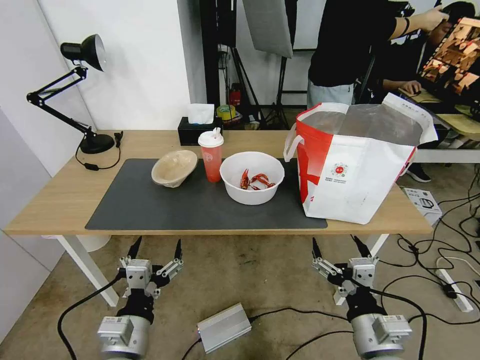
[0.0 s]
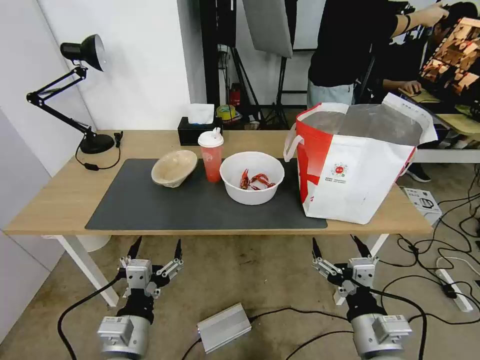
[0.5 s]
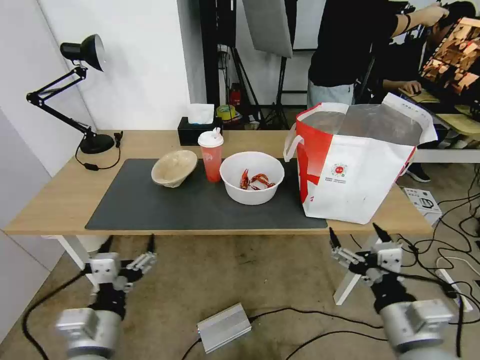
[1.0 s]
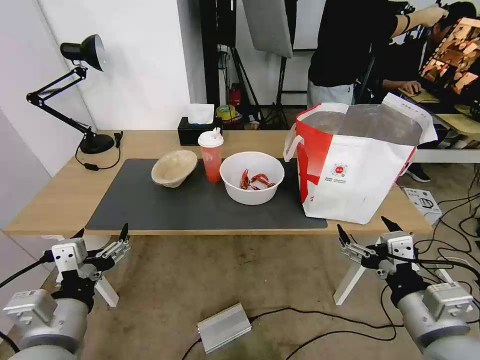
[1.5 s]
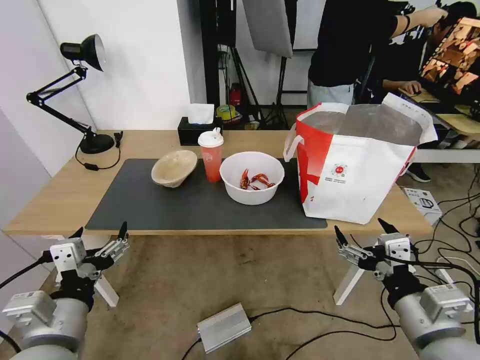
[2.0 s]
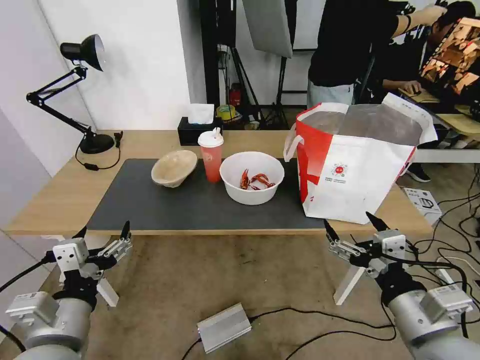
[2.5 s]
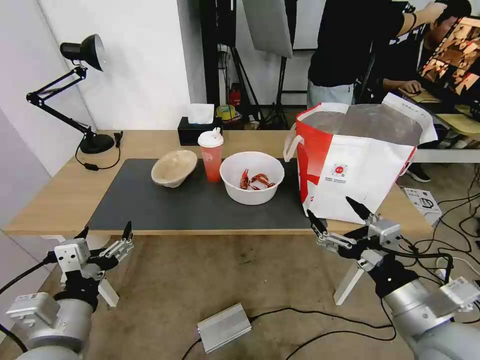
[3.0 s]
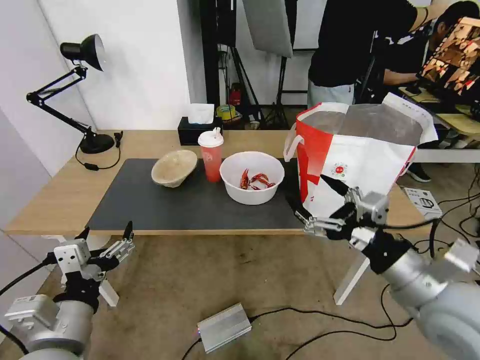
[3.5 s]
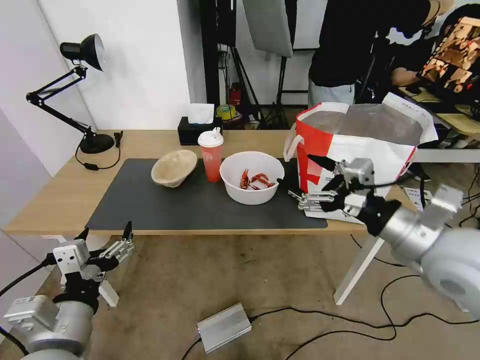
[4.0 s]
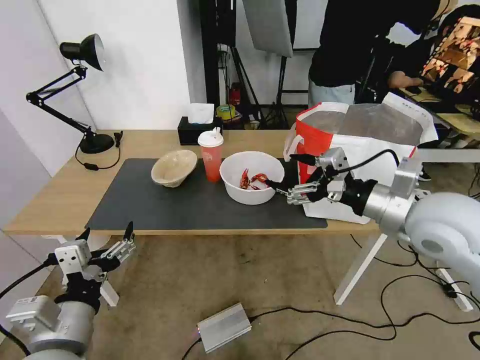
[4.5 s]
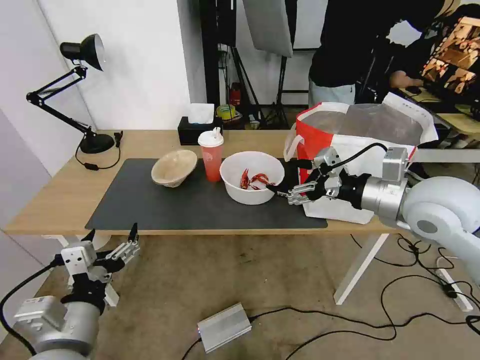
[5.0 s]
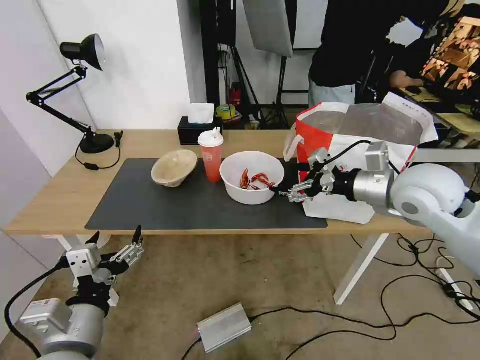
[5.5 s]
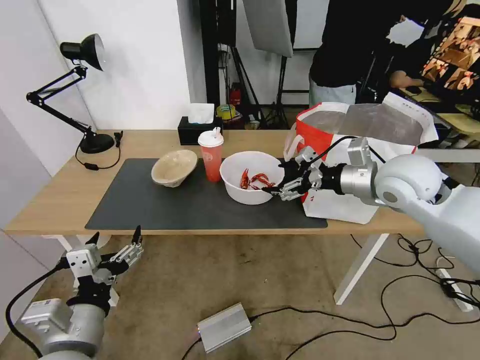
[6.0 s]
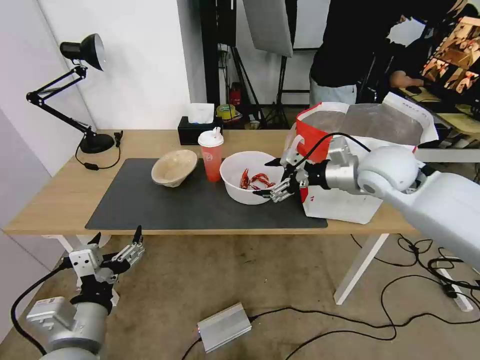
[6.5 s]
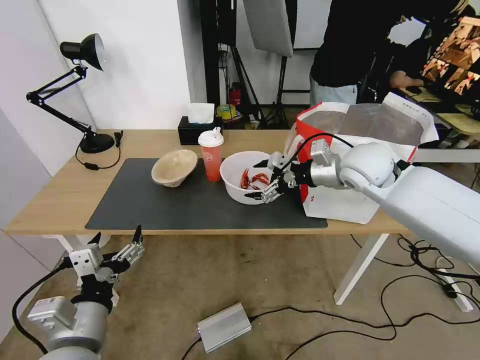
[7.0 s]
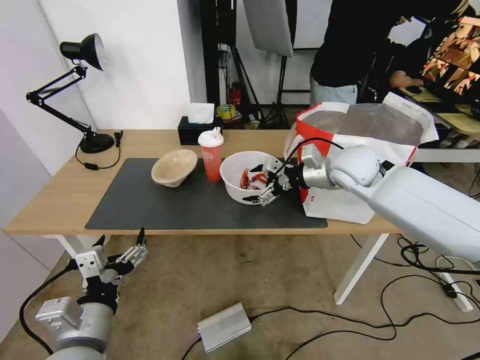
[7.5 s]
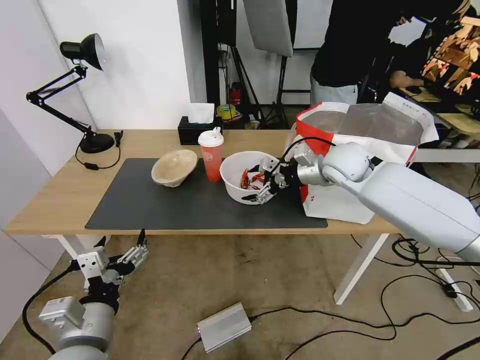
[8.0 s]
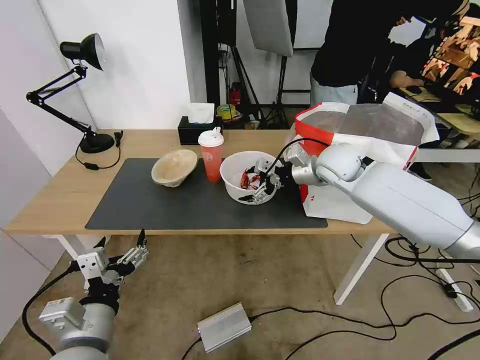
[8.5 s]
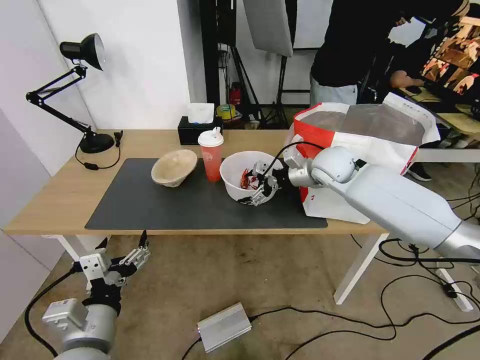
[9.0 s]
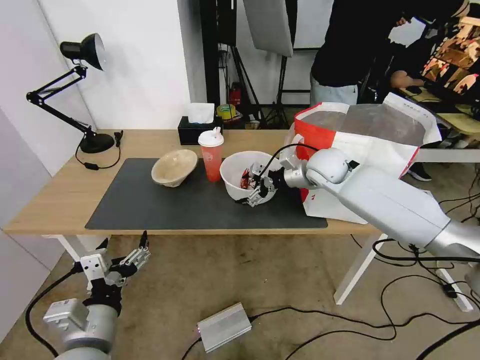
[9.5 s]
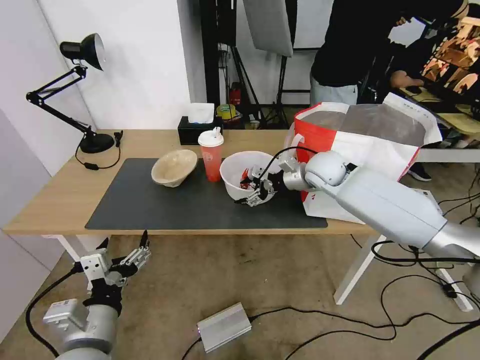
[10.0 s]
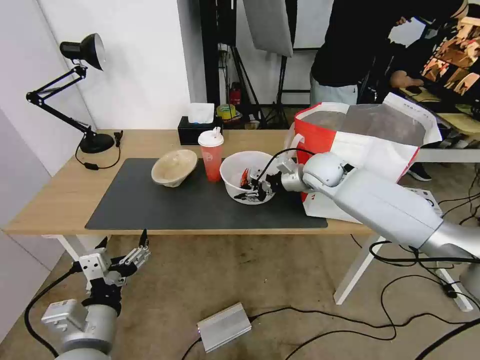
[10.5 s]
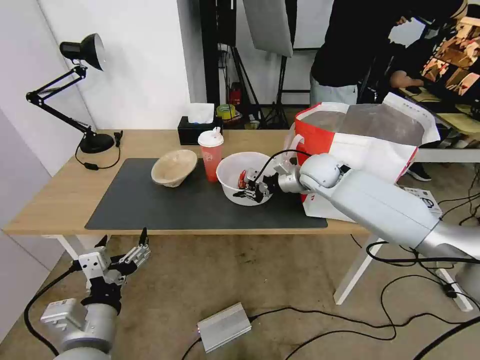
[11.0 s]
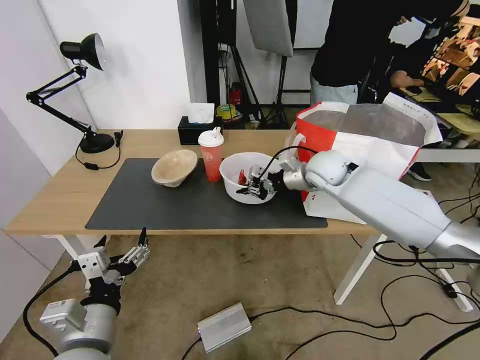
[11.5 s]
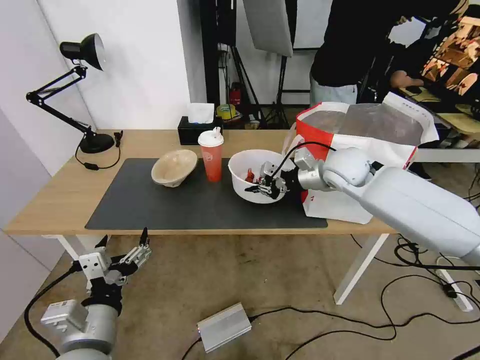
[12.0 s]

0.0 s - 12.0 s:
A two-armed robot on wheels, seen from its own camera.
Task of the whole recording: Pick up the trash from the table and place it into the takeout bag.
2.0 s - 4.0 s: The right gripper moves forward and upward, roughly 15 cm.
4.0 s - 6.0 s: The right gripper moves forward, roughly 15 cm.
6.0 s - 8.0 s: The right gripper goes approximately 15 cm forward and to the left.
8.0 s - 10.0 s: The right gripper moves about 5 cm.
10.0 s - 12.0 s: The right gripper changes place by some 5 cm, and closes up.

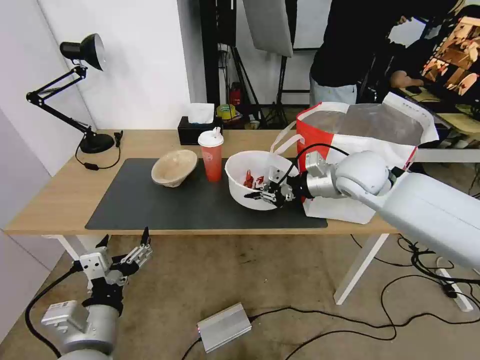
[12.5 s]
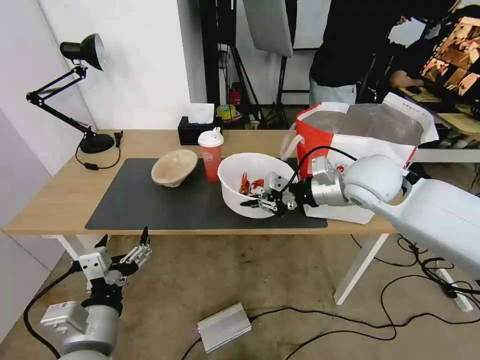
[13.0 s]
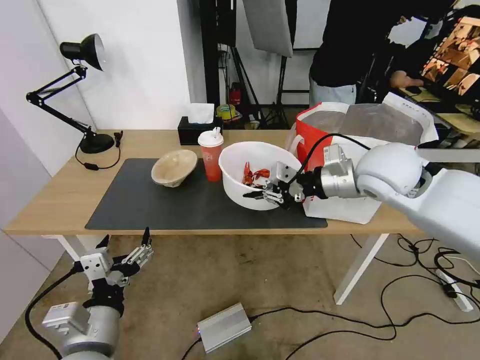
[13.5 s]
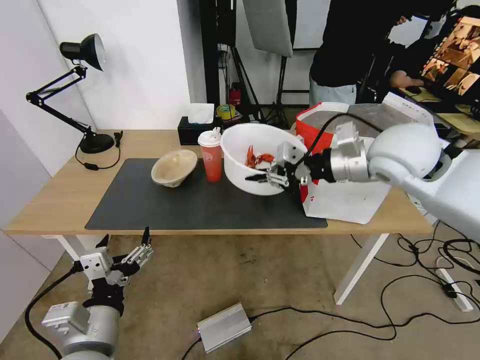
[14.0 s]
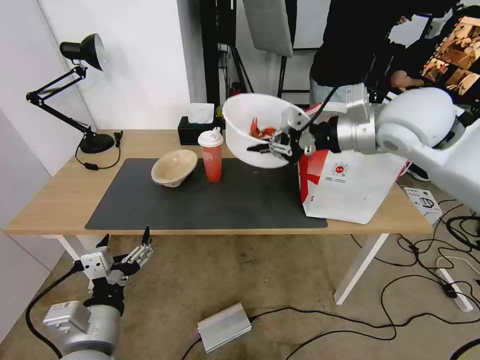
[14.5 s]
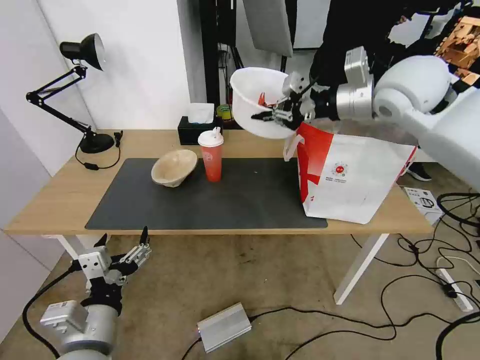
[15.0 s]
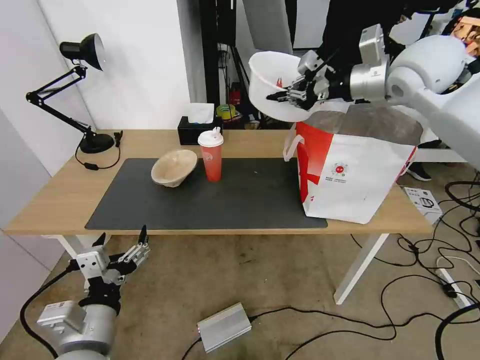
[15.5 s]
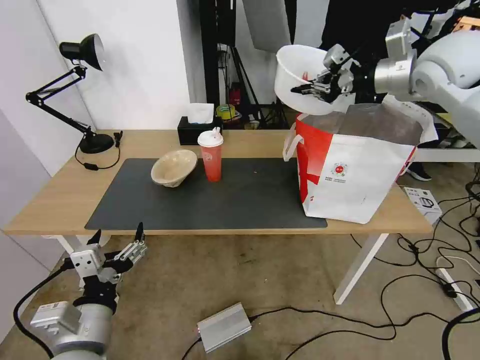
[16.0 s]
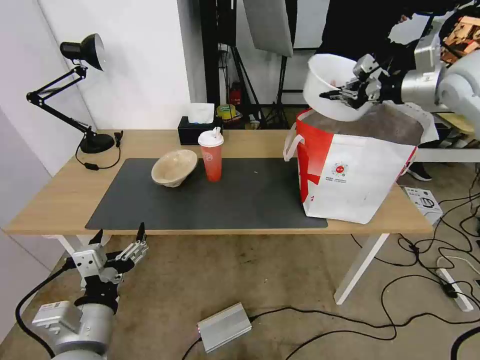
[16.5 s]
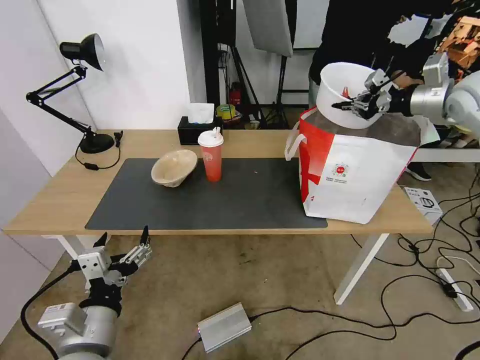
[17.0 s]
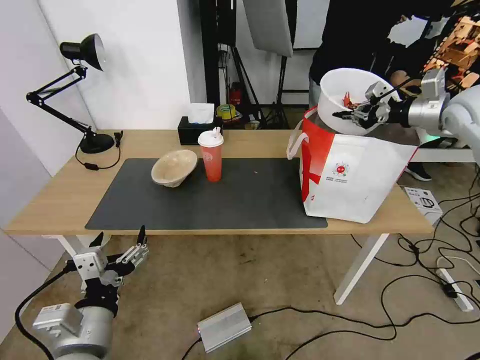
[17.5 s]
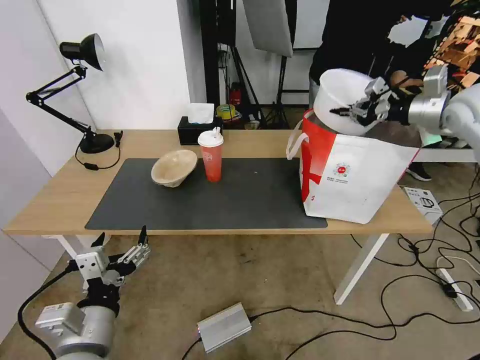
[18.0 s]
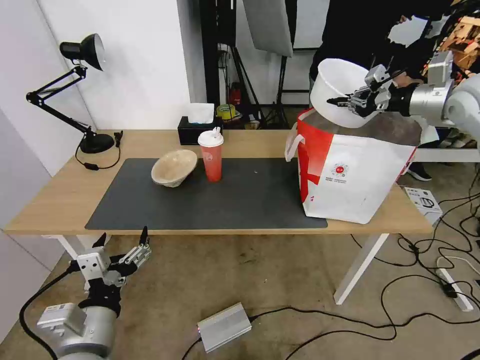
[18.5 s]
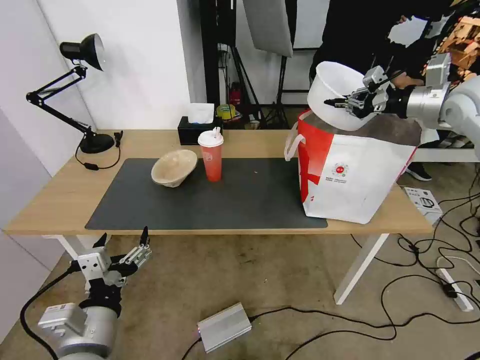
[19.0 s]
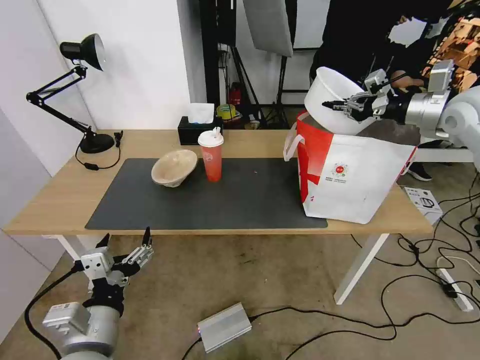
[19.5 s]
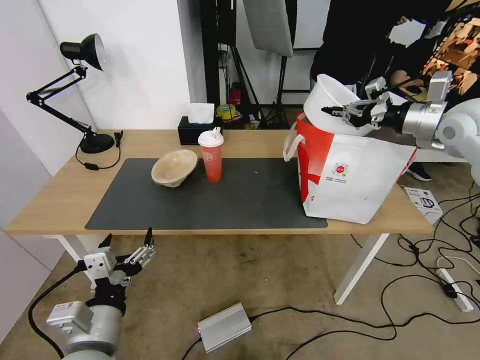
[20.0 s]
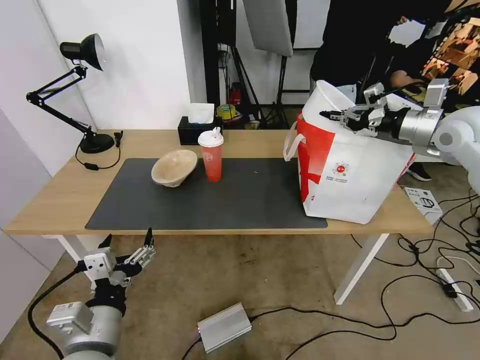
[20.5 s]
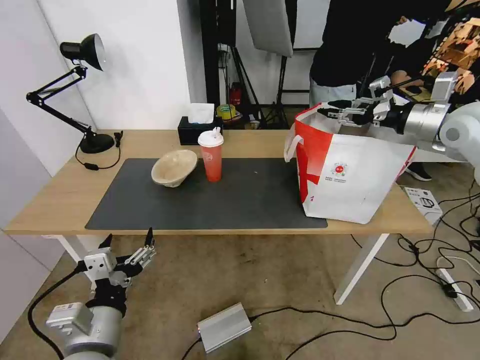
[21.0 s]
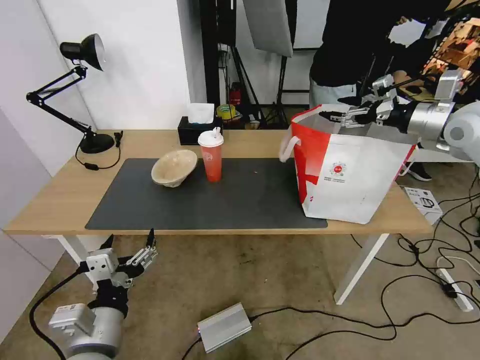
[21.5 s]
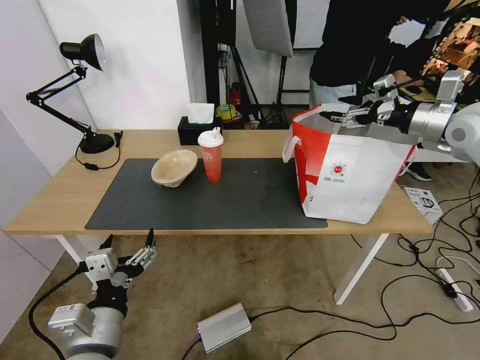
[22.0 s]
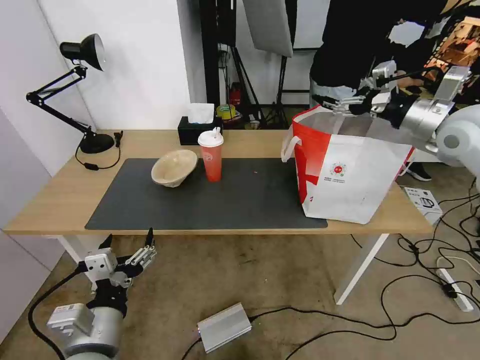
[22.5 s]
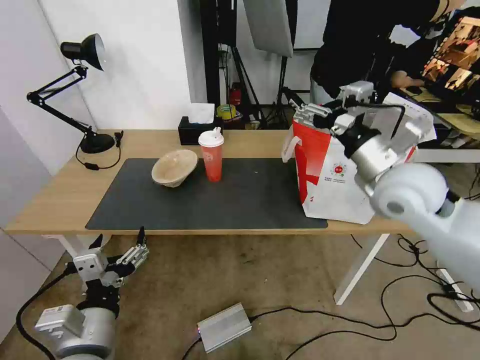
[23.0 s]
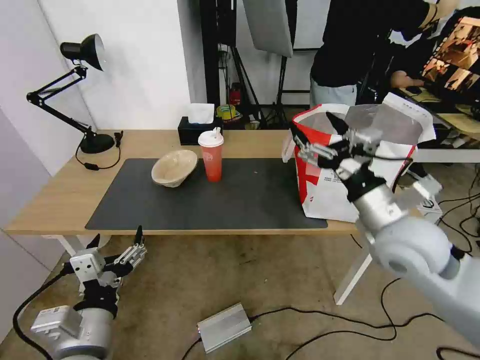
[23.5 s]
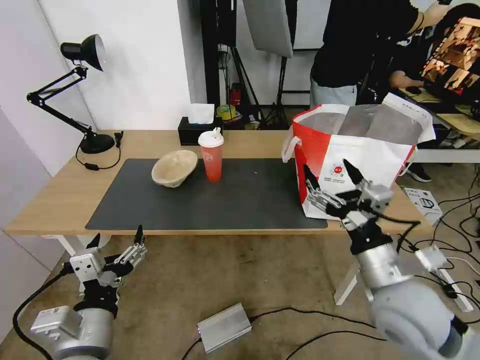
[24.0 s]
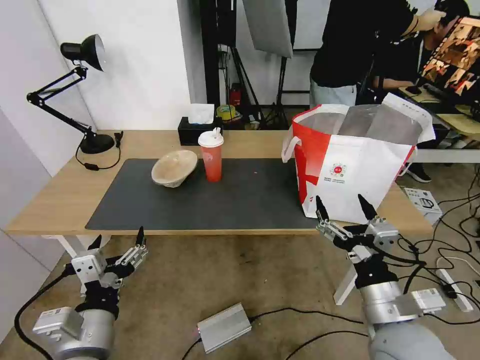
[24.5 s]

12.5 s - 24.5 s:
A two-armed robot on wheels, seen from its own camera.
Task of the whole recording: Pick up the trash from the table and place it into the takeout bag.
12.5 s - 14.5 s: The right gripper shifts about 15 cm upward.
14.5 s - 16.5 s: The right gripper goes some 15 cm to the right and forward.
18.5 s - 20.5 s: The right gripper travels downward by about 5 cm.
20.5 s - 22.5 s: The right gripper ends up about 5 cm from where it was, and opens.
22.5 s - 24.5 s: The right gripper moves backward, downward and to the left, some 40 cm.

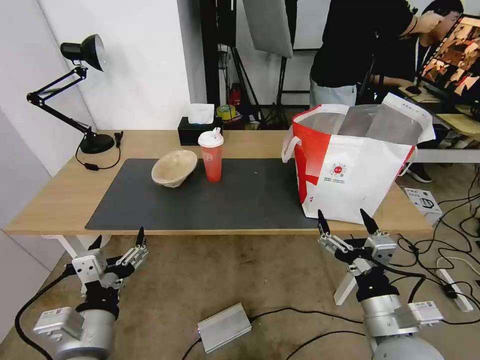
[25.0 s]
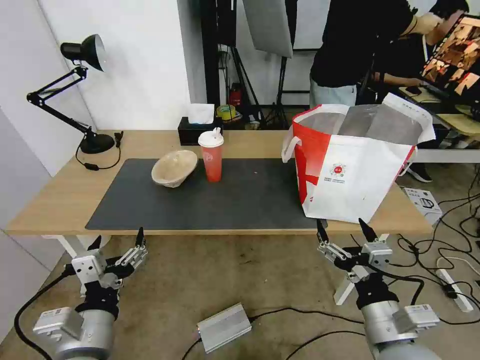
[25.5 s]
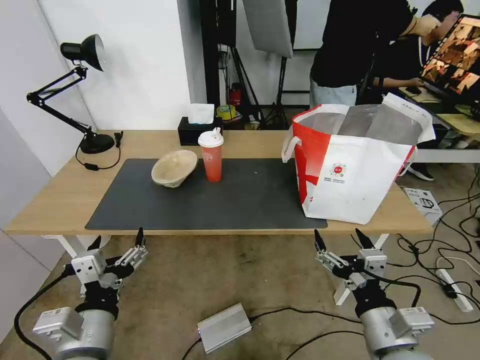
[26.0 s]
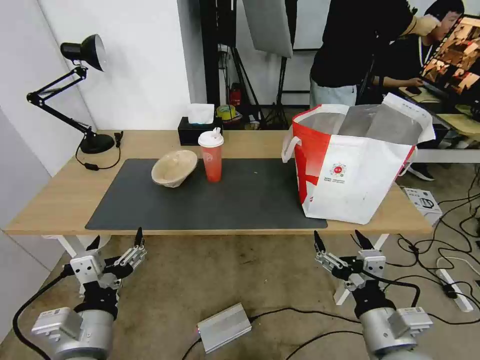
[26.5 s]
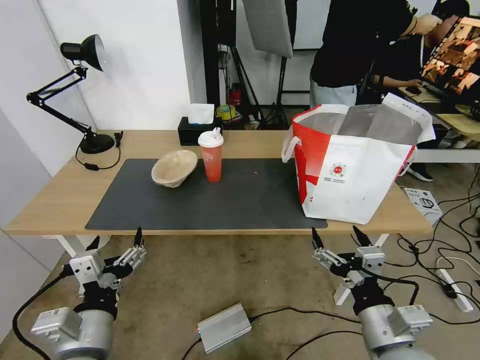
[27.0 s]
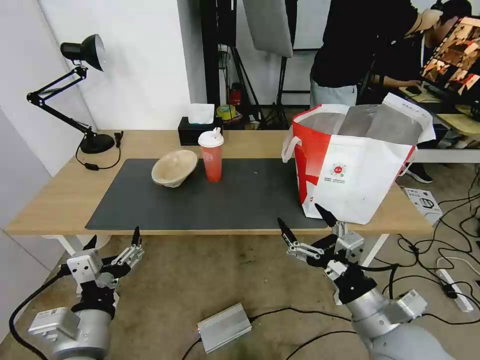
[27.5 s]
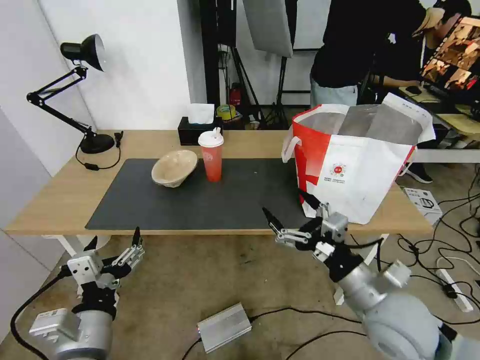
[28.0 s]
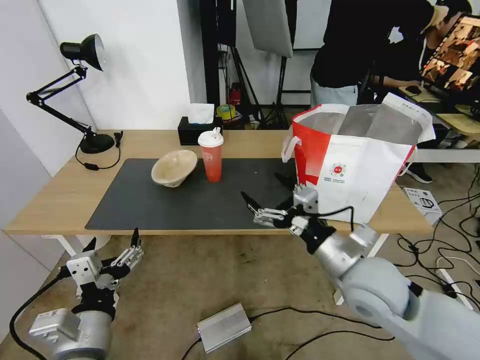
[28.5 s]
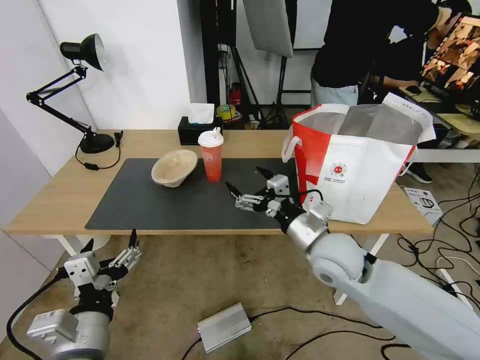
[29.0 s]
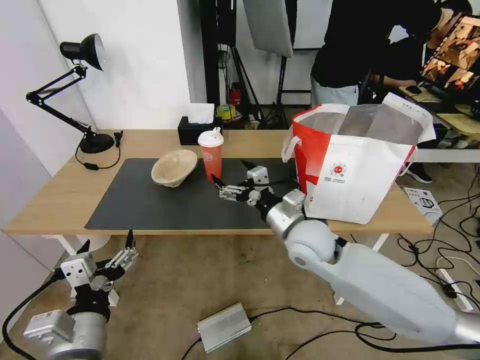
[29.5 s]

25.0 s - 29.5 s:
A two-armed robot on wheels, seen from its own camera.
Task of the whole recording: Pick up the trash from the table and place it into the takeout bag.
25.0 s - 27.0 s: The grippers stay close to where they were, moving slightly.
27.0 s - 29.5 s: The right gripper shifts approximately 25 cm forward and to the left.
